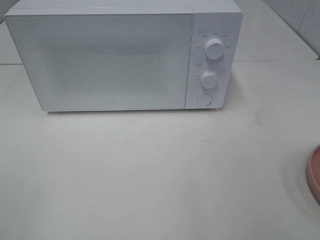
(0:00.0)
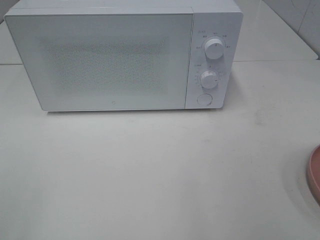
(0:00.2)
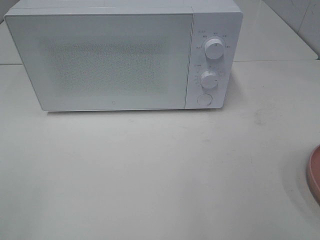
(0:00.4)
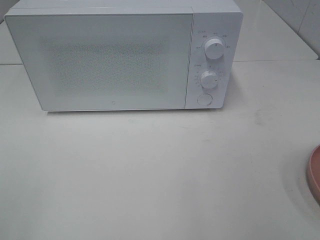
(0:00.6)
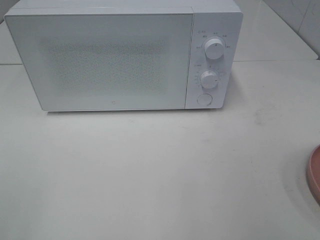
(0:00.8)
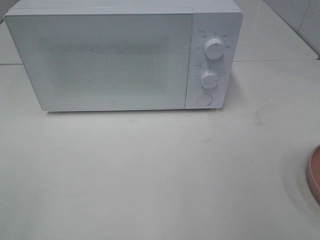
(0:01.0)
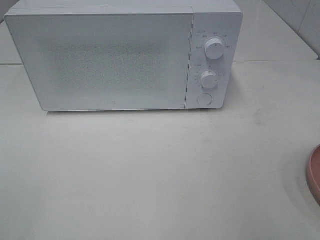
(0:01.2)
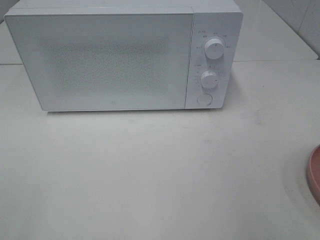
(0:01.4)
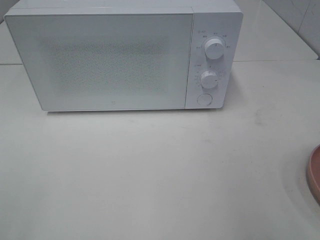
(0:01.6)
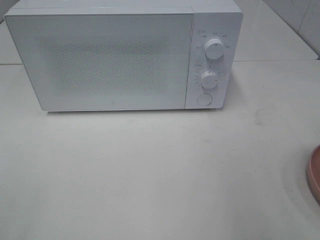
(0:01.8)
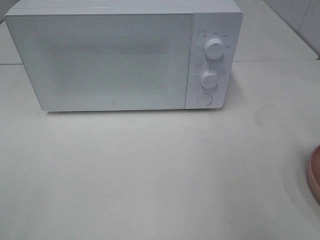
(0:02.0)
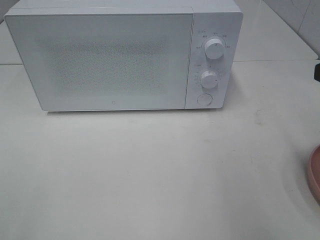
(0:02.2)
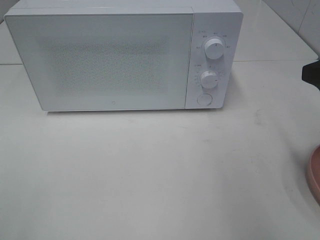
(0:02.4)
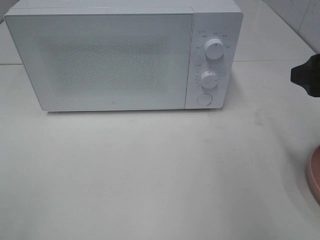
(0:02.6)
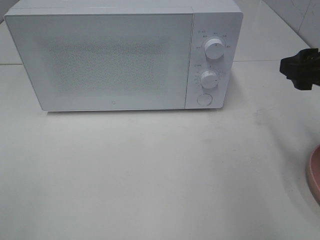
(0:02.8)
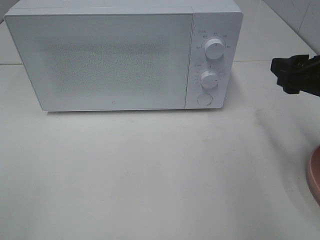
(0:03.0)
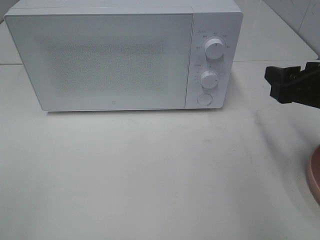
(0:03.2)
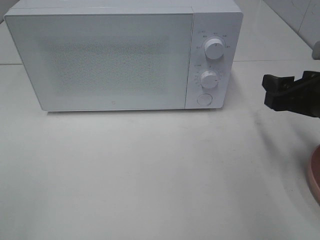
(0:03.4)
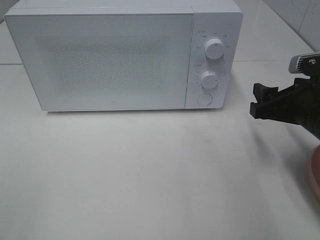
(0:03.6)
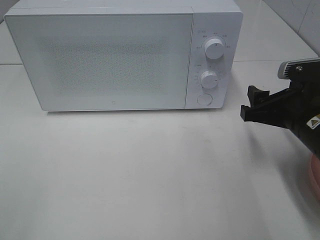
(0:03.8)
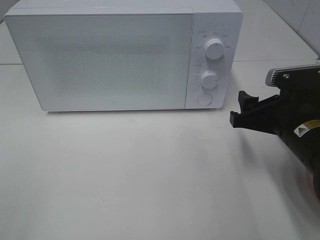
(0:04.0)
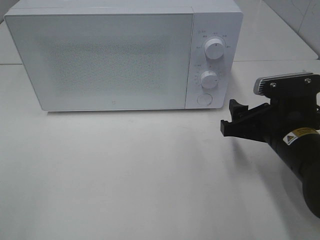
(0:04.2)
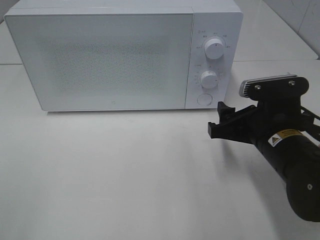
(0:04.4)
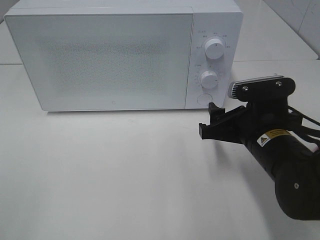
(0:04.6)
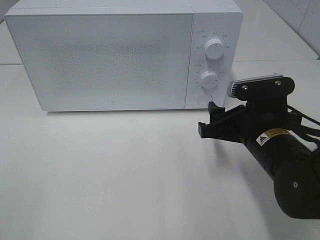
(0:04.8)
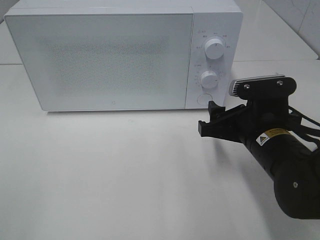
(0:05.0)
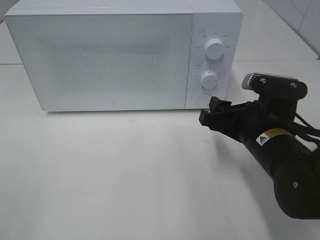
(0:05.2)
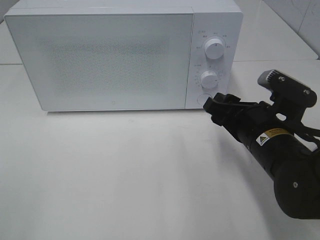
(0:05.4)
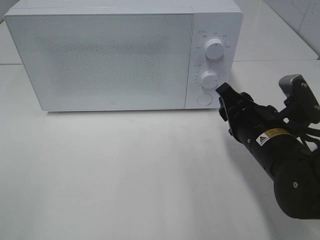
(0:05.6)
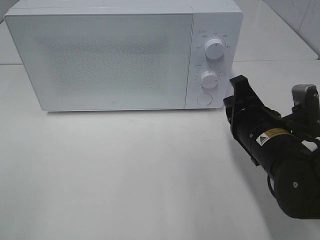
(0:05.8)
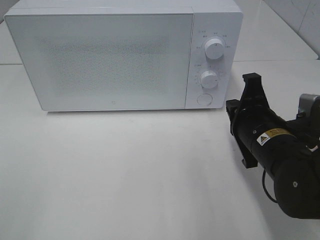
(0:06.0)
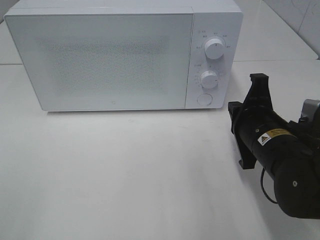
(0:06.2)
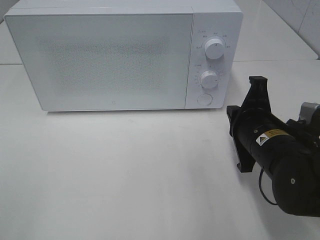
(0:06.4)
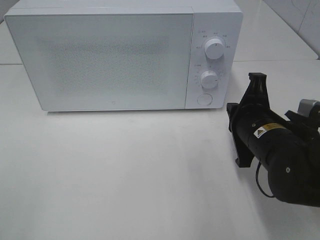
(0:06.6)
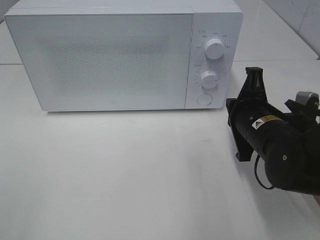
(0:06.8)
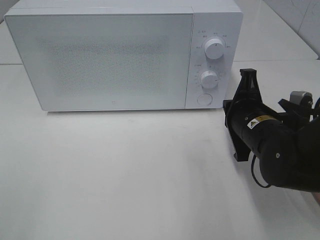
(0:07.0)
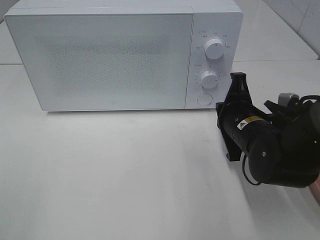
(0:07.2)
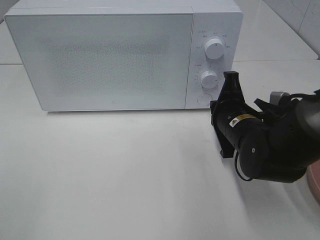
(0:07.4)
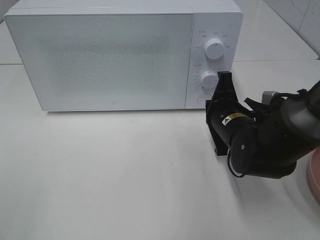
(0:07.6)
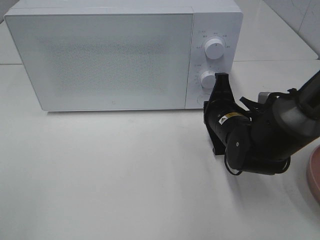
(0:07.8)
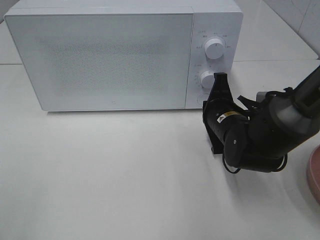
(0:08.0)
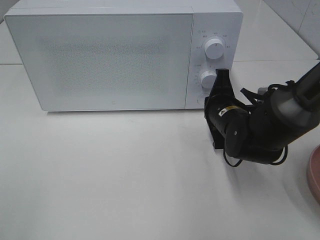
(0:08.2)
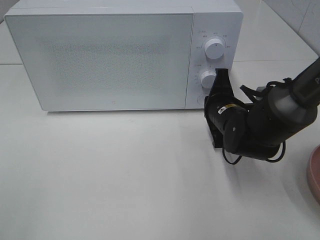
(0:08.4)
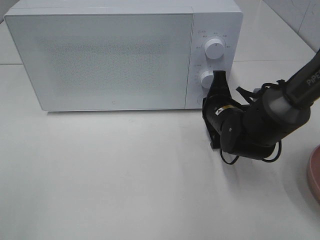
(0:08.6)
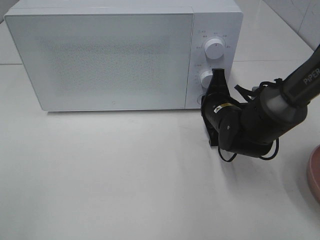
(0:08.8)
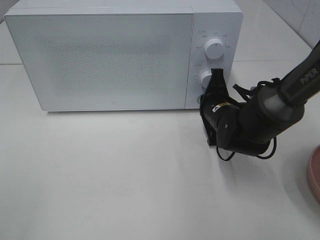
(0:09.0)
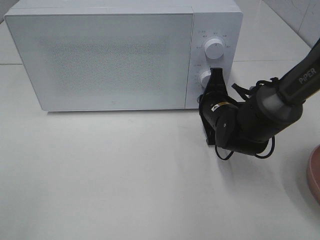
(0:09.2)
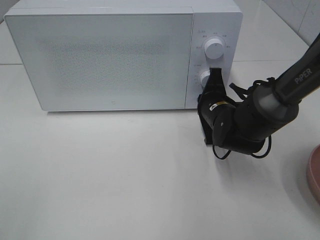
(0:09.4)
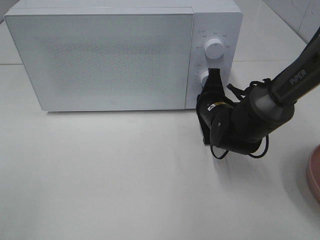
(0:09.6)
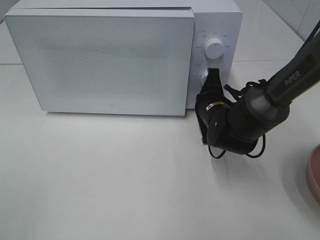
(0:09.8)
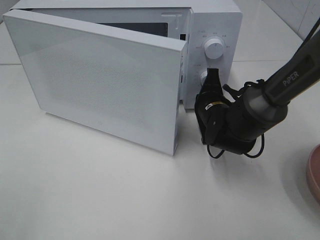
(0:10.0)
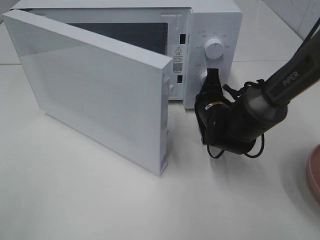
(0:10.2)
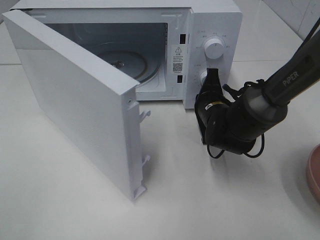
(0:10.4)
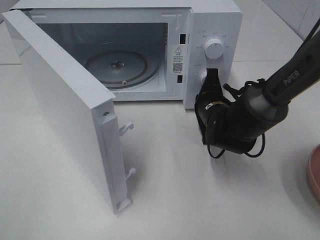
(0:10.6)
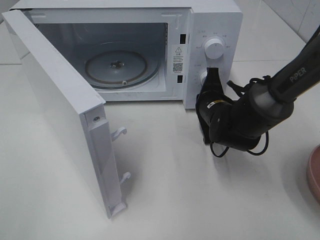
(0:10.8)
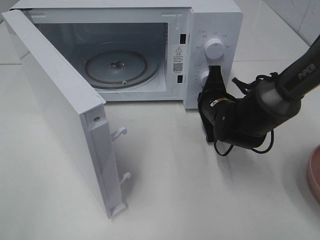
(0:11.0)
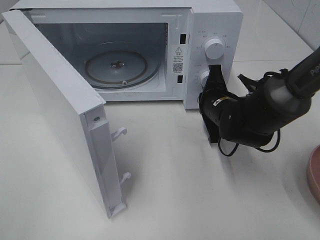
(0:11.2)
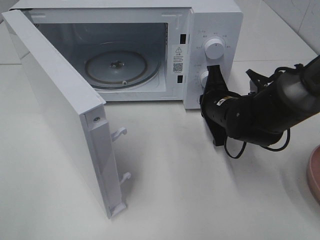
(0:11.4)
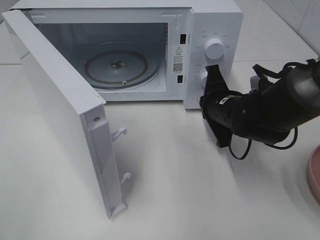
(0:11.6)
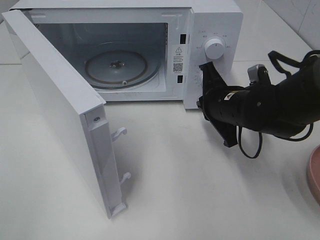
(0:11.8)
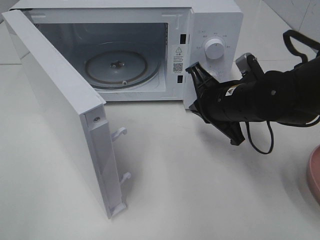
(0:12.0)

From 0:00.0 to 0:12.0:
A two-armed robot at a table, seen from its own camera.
Task of the whole recording: Heat the burger.
Step, from 0:00.0 to 0:11.6: Right hand: press the switch.
From 0:01.6 to 0:03.0: The right gripper goes roughly 15 cm forward and downward.
From 0:03.0 to 0:04.4: The right gripper goes approximately 15 cm downward and to the left.
From 0:04.4 to 0:06.0: The right gripper closes.
From 0:06.0 to 0:07.6: The right gripper goes about 5 cm forward.
From 0:07.6 to 0:09.0: The right gripper ends up some 5 cm from where it was.
From 0:10.4 to 0:12.0: The right gripper goes about 10 cm upward and backward.

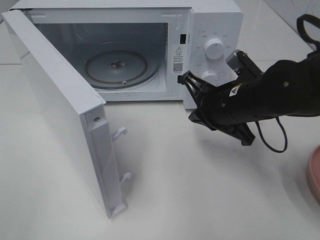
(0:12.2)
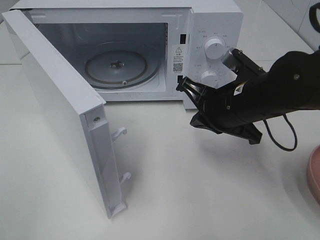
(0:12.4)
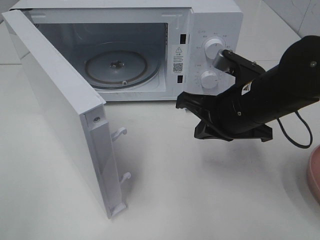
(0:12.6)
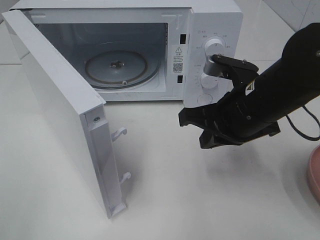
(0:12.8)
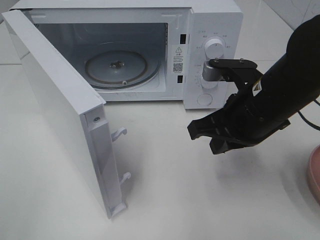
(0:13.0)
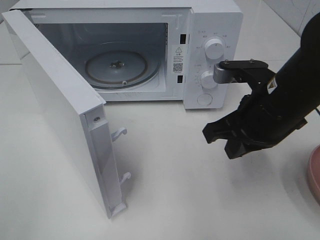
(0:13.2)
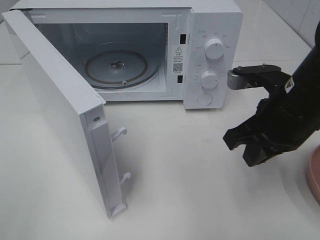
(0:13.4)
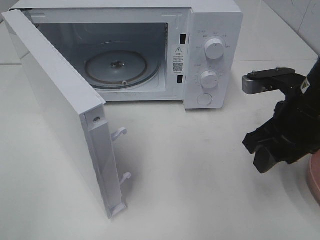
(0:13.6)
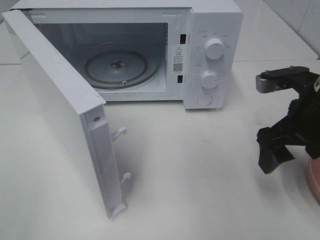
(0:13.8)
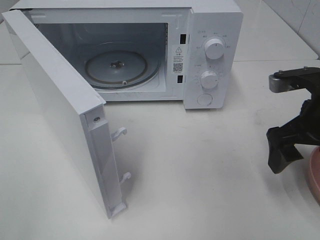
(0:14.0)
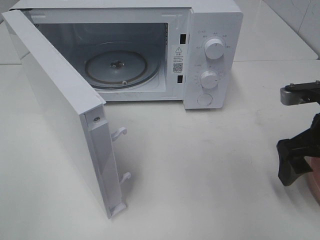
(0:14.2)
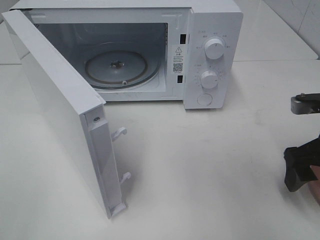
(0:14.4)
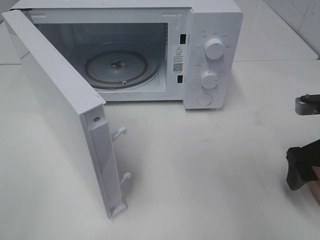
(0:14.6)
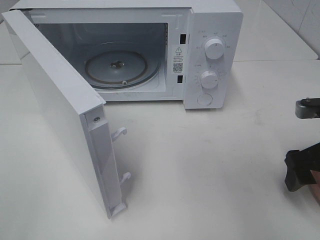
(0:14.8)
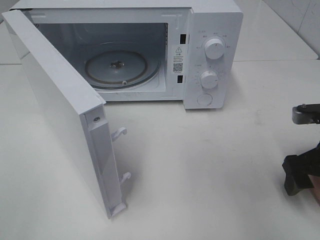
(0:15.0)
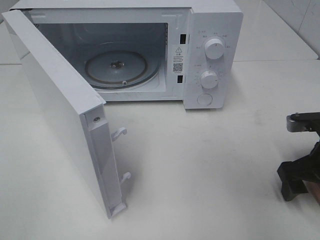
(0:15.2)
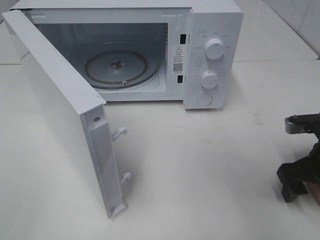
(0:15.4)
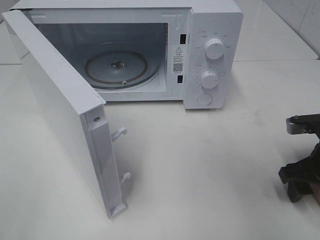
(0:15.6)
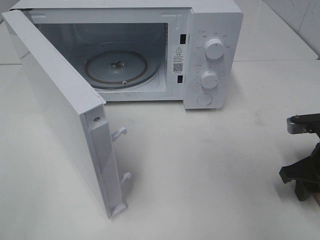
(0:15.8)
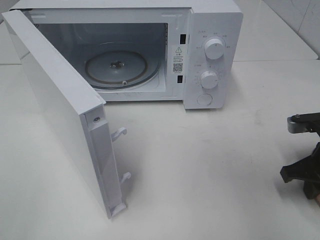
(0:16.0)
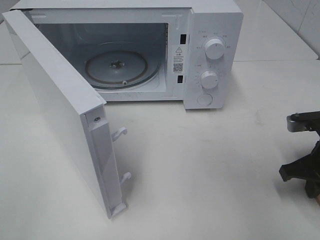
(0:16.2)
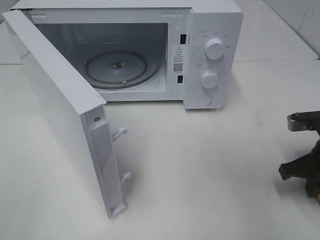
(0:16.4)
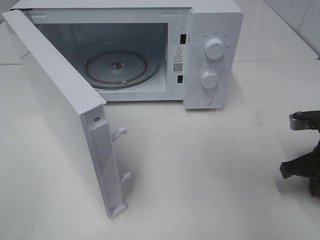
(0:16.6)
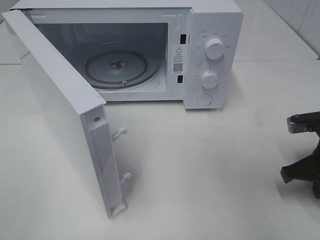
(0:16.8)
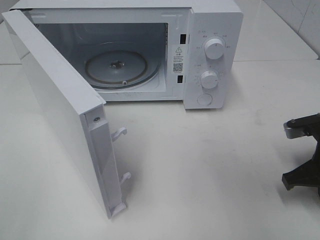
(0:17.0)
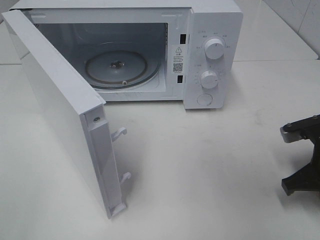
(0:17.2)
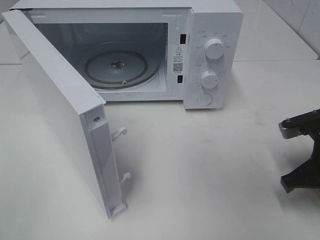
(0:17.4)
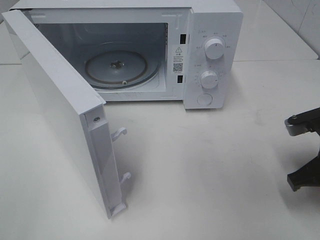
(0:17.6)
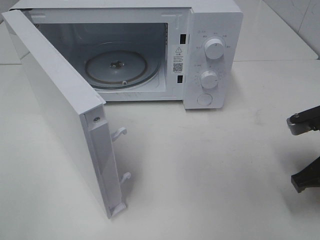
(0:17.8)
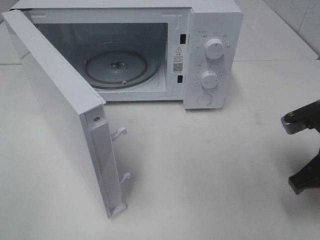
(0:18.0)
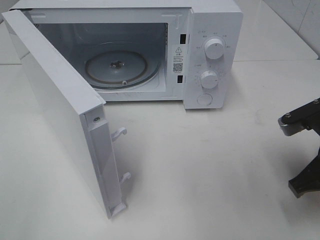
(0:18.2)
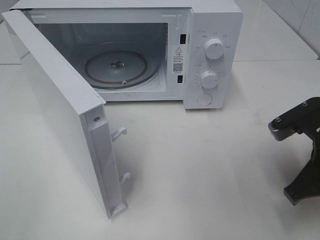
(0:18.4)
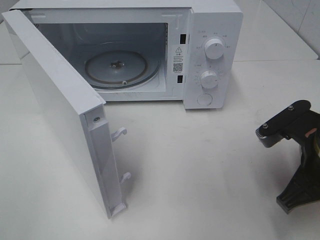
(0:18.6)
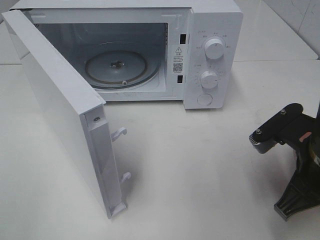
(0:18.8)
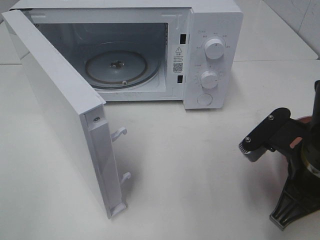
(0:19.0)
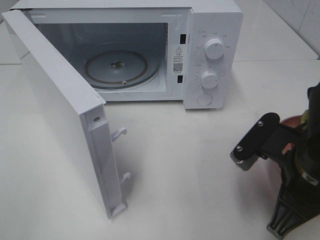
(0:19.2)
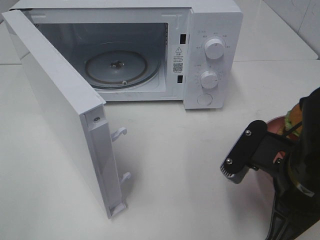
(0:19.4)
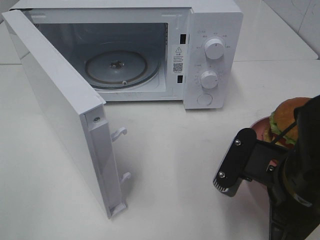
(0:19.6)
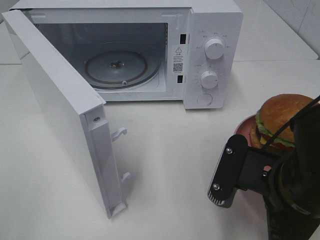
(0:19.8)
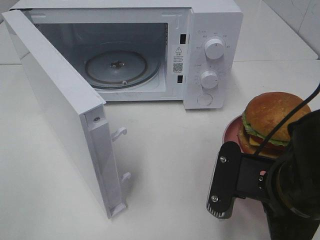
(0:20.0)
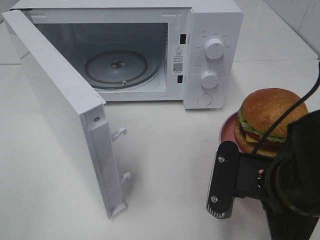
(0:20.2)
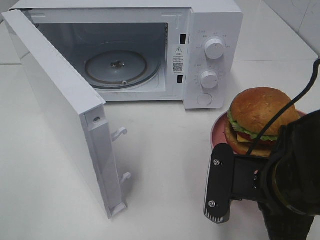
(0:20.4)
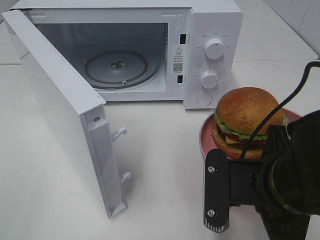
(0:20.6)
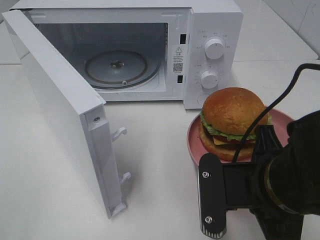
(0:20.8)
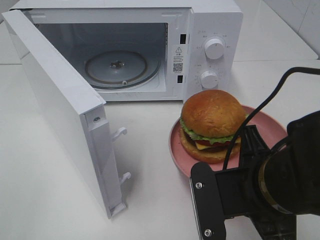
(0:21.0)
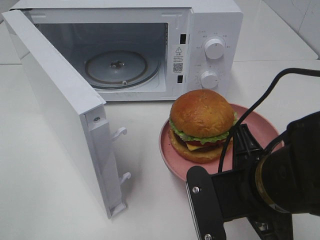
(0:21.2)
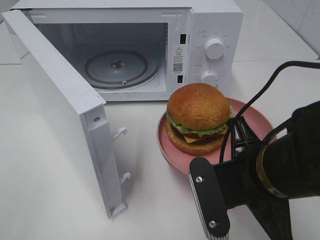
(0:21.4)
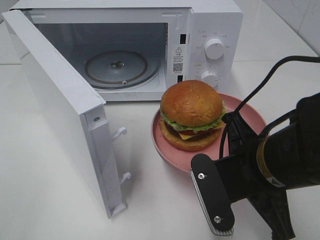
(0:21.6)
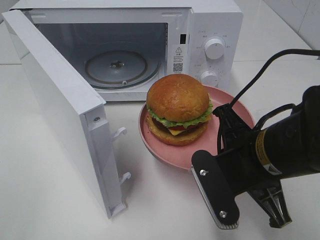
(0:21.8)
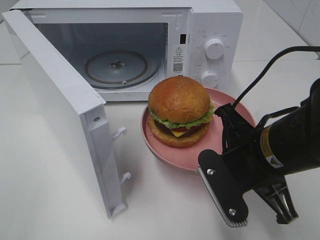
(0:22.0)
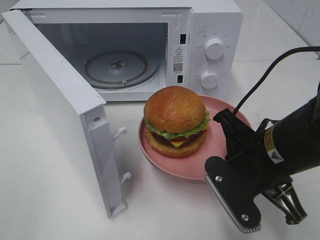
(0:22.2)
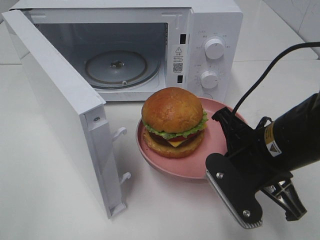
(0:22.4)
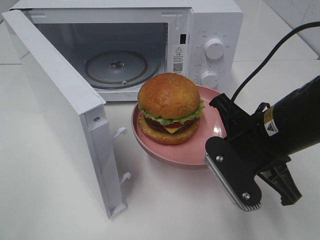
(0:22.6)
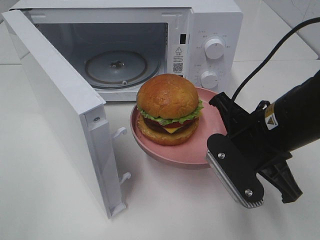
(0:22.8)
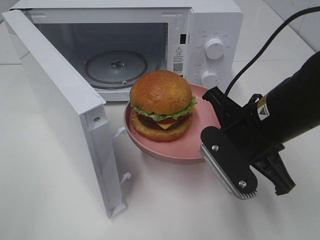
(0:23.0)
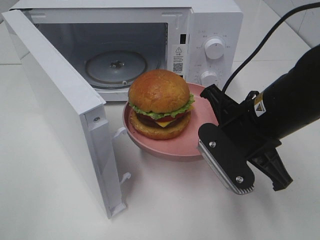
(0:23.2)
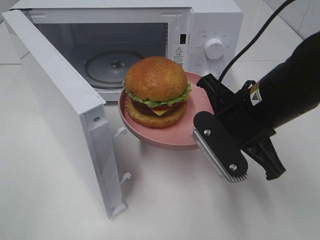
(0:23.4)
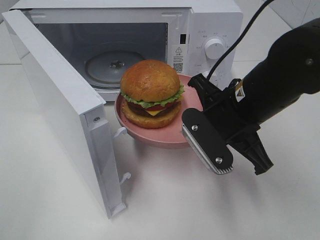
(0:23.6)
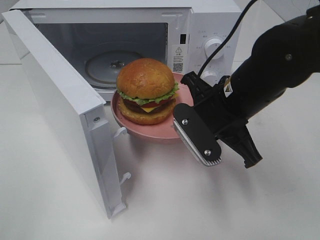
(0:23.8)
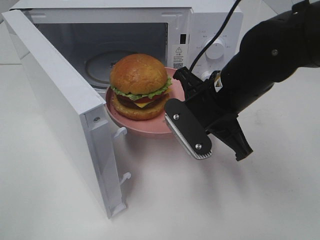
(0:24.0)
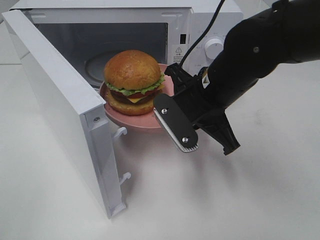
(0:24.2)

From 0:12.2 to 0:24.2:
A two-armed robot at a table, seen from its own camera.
Task of the whole recording: Heat the burger.
Step, from 0:12.2 to 0:17.0: Right hand: grab the plate with the hamburger.
From 0:12.2 to 0:13.8: The right gripper heads to the right, covering some 10 cm, and opens its fingers.
From 0:13.8 to 0:15.2: The right gripper travels downward and to the right by about 10 cm.
From 0:15.2 to 0:16.6: The right gripper closes its fingers.
From 0:16.6 to 0:18.2: The right gripper goes about 5 cm upward and to the left.
From 0:18.2 to 0:19.8: The right gripper goes some 10 cm to the left and backward.
From 0:21.2 to 0:22.6: The right gripper travels forward by roughly 5 cm.
From 0:22.6 to 0:24.2: The right gripper is displaced forward and to the left by approximately 10 cm.
